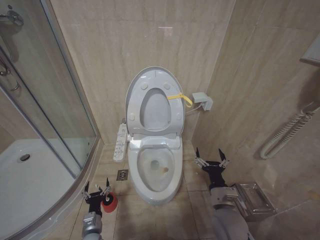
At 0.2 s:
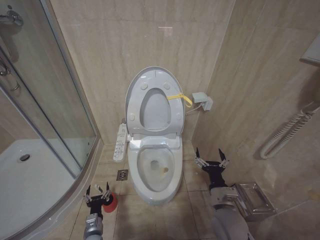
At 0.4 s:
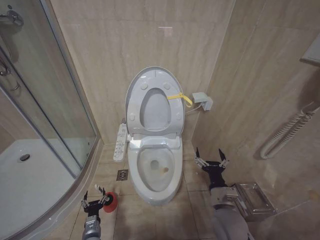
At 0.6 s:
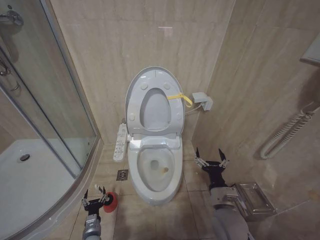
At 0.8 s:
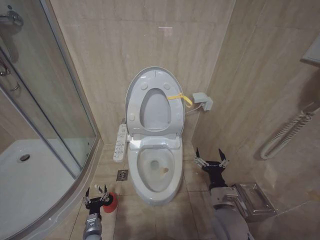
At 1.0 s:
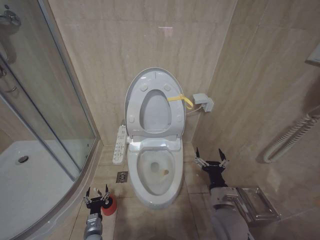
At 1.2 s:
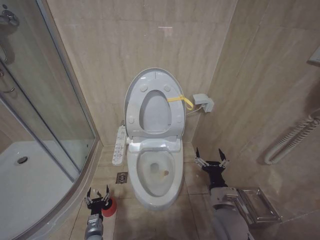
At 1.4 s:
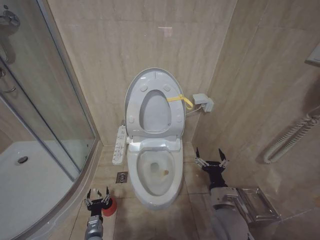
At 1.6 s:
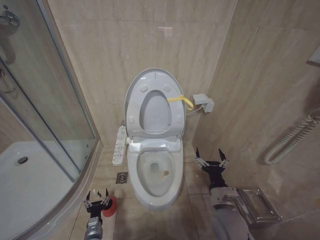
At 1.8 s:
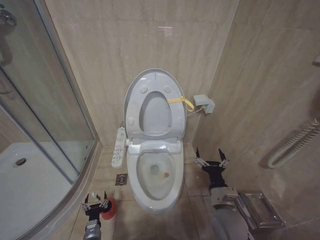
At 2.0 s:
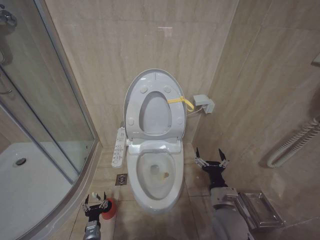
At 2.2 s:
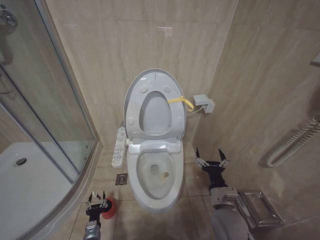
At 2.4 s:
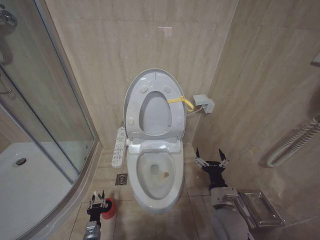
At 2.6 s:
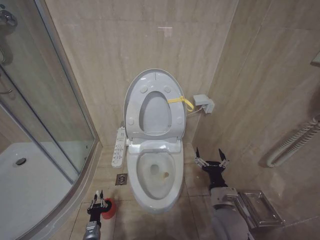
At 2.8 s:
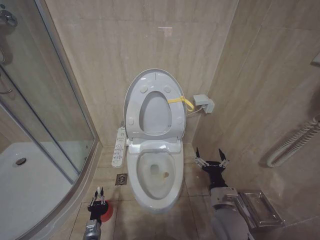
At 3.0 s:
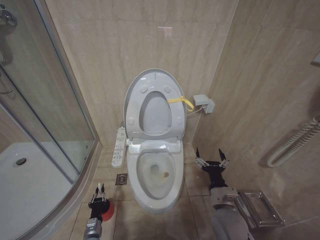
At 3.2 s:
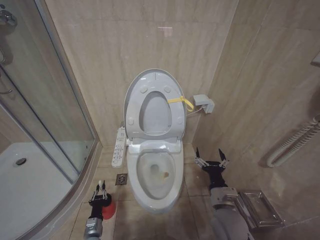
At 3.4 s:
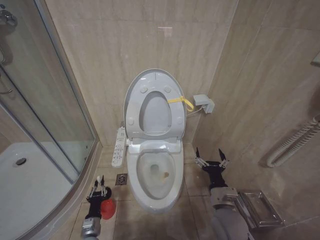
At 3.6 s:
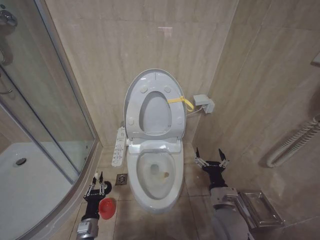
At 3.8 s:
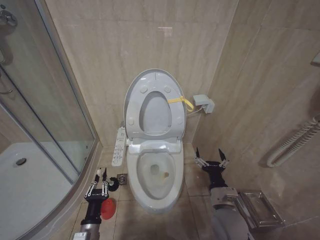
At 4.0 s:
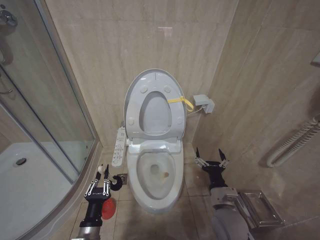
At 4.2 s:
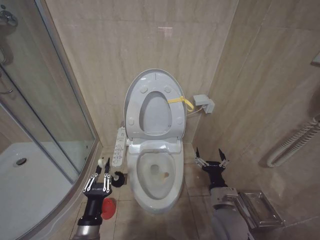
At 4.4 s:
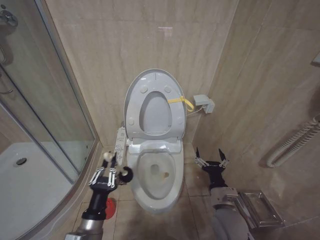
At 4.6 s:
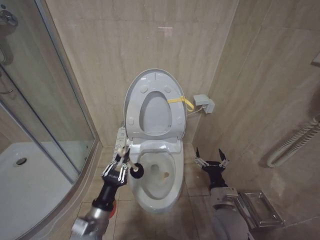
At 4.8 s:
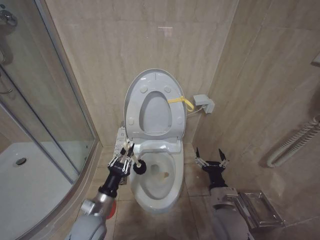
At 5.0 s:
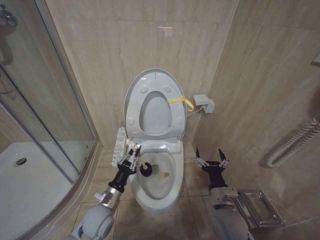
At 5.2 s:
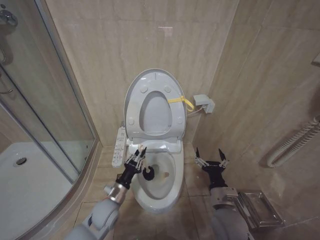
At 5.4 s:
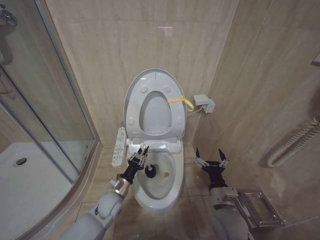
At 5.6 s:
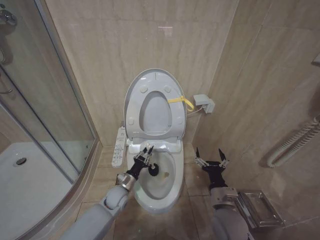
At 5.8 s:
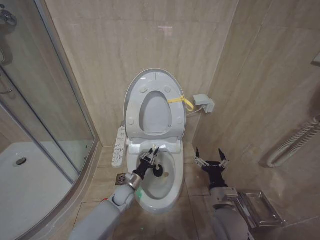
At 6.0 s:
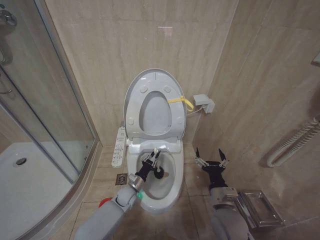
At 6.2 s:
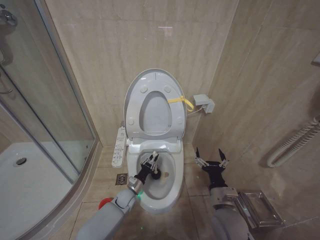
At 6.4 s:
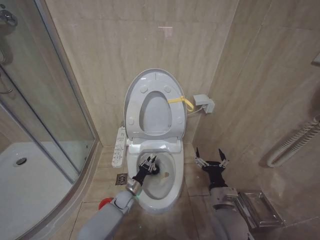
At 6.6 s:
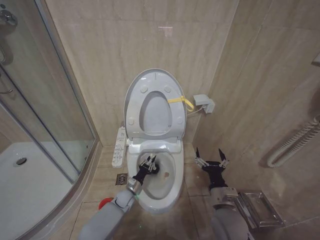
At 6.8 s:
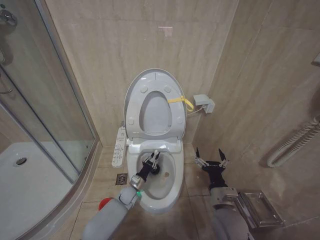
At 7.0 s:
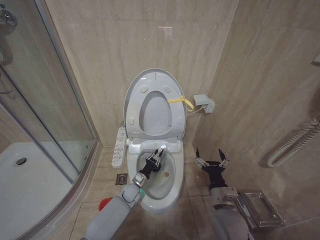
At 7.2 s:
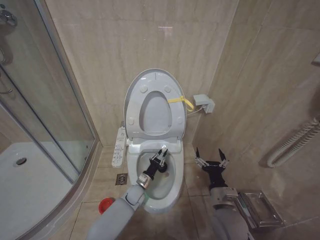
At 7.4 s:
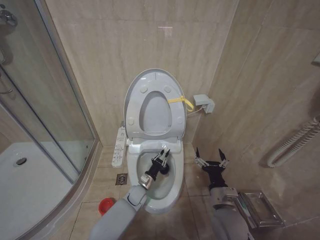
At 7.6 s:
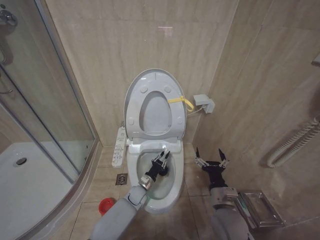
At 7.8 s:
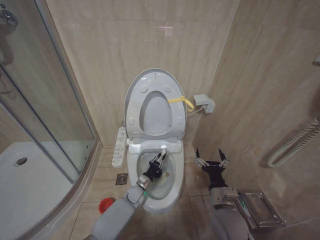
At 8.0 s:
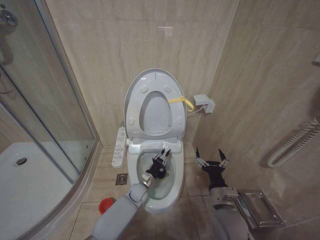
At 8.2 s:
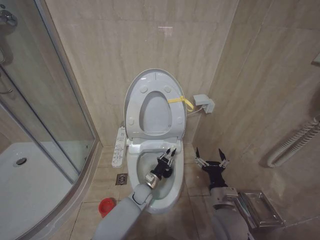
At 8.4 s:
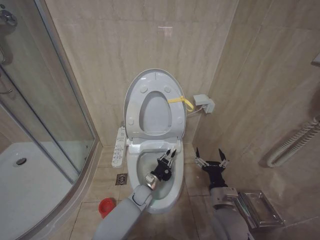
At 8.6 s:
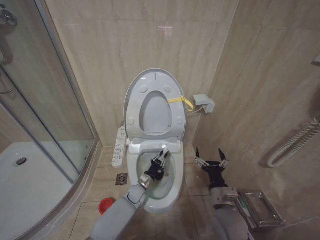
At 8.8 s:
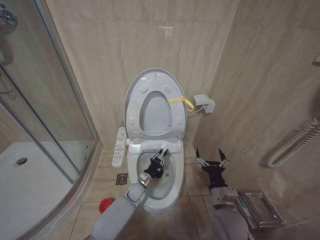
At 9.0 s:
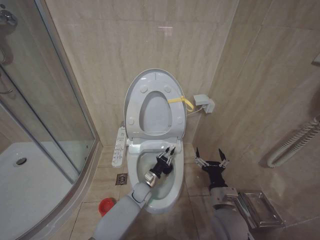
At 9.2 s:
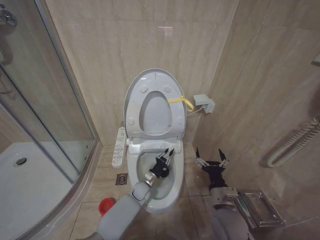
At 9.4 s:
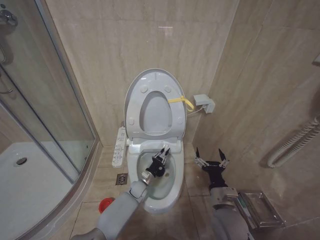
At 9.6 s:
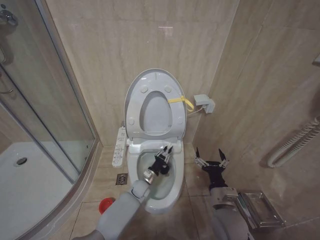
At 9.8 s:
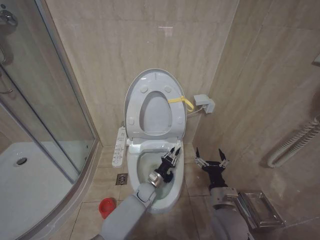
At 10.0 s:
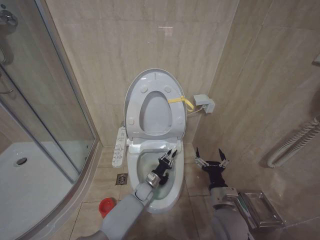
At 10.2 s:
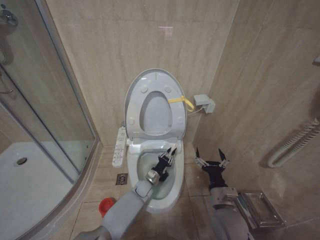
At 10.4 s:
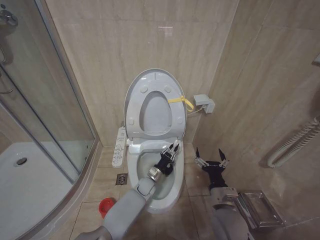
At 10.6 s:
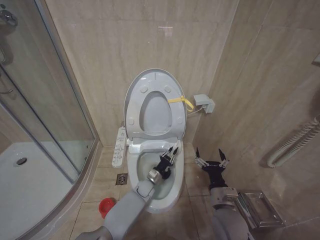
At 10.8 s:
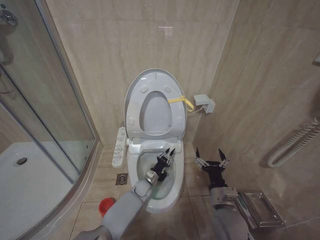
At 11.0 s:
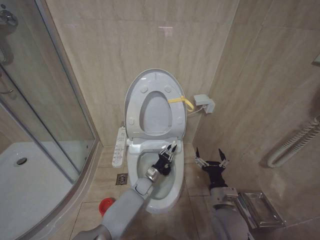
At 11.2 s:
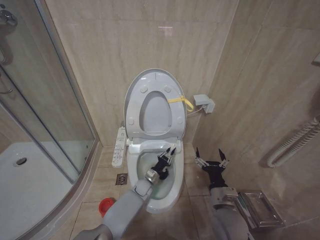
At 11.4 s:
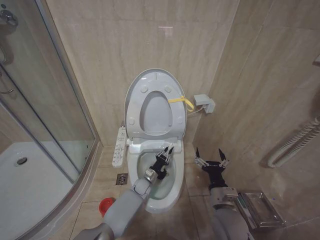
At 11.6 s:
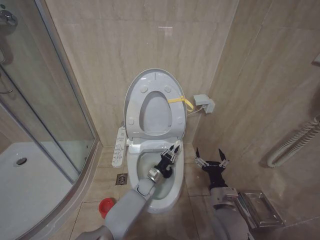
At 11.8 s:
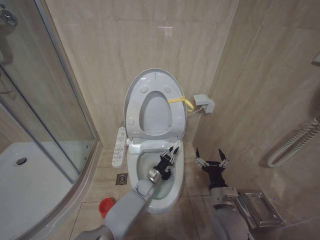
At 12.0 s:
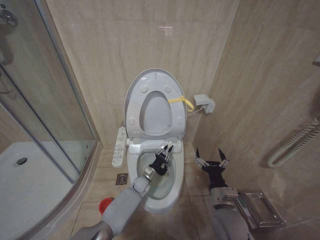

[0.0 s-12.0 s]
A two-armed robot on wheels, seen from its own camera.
Task of the whole recording: Open the toilet lid, clean the toilet bowl with a toilet brush, close the toilet lid, and flush.
0.0 to 1.6 s: The left gripper shifts some 10 cm downward.
1.6 to 3.0 s: The left gripper closes up.
3.0 to 4.4 s: The left gripper heads upward, covering roughly 25 cm.
4.4 to 6.0 s: The left gripper is displaced forward and downward by approximately 30 cm.
6.0 to 7.6 s: The left gripper heads to the right, covering about 5 cm.
7.6 to 12.0 s: The grippers make only small movements.

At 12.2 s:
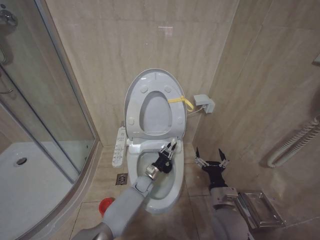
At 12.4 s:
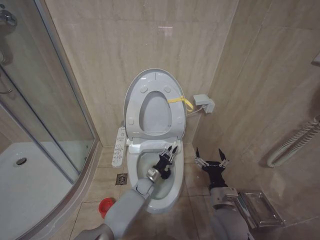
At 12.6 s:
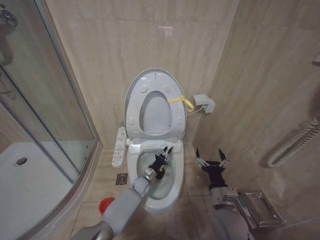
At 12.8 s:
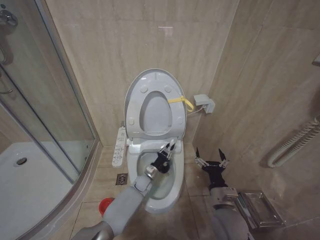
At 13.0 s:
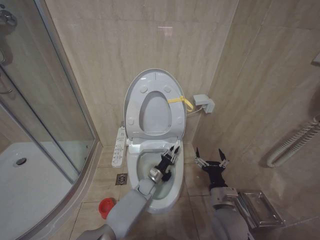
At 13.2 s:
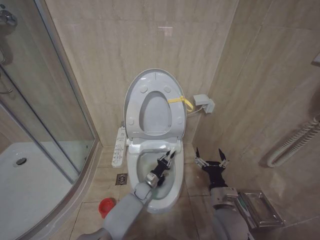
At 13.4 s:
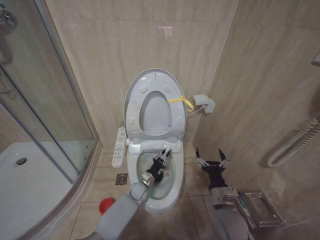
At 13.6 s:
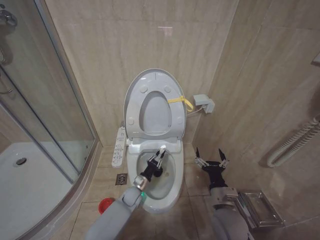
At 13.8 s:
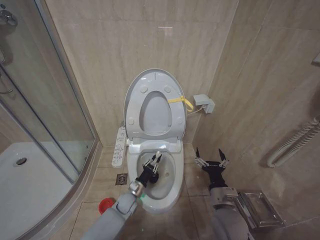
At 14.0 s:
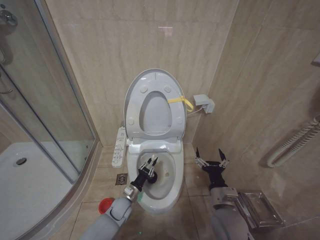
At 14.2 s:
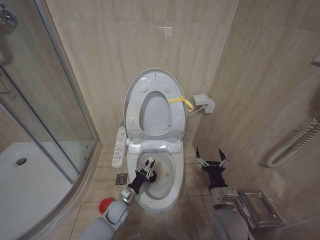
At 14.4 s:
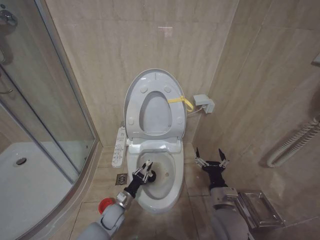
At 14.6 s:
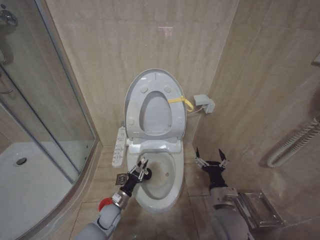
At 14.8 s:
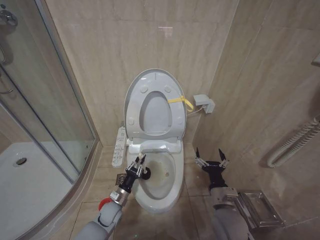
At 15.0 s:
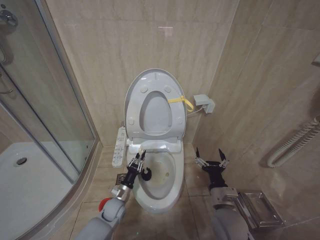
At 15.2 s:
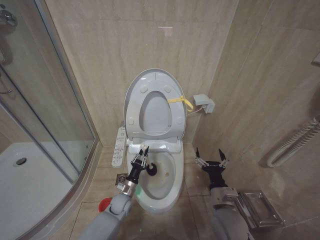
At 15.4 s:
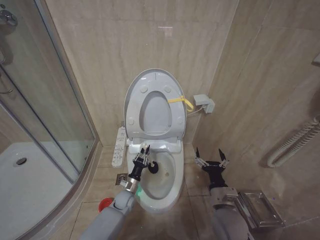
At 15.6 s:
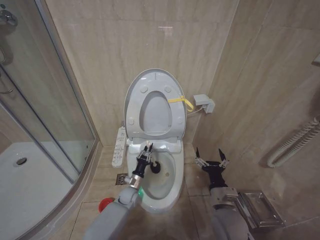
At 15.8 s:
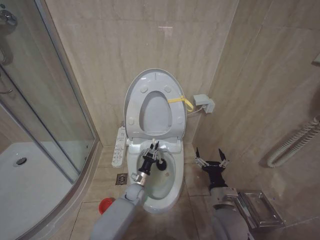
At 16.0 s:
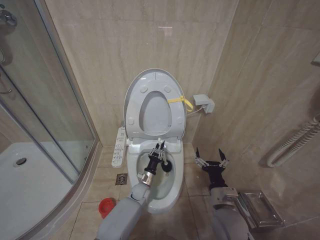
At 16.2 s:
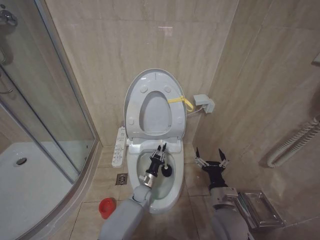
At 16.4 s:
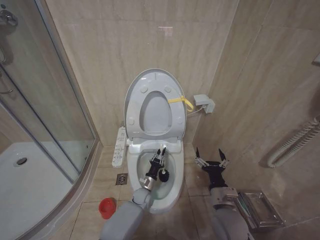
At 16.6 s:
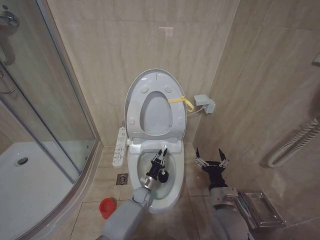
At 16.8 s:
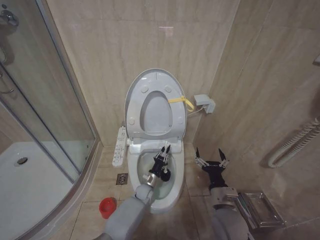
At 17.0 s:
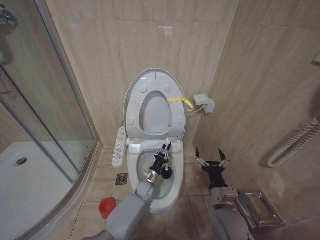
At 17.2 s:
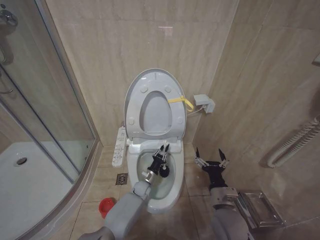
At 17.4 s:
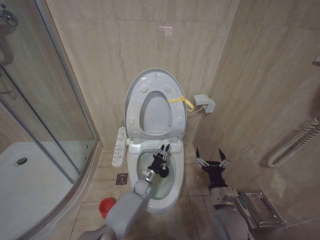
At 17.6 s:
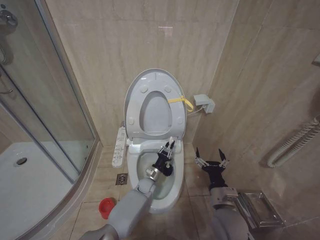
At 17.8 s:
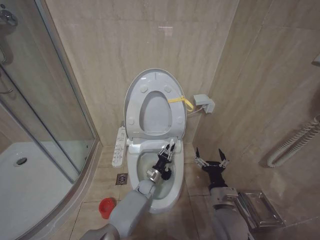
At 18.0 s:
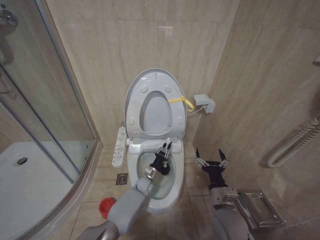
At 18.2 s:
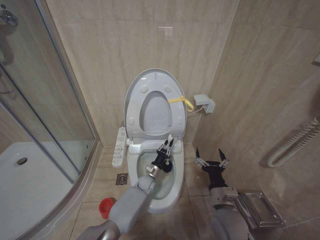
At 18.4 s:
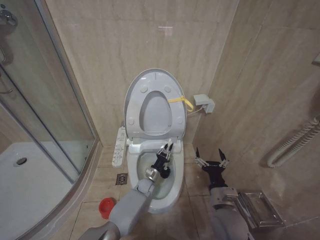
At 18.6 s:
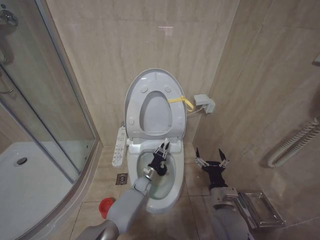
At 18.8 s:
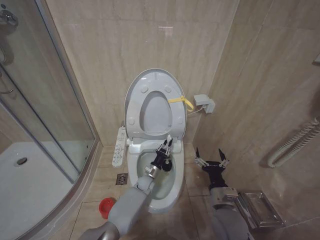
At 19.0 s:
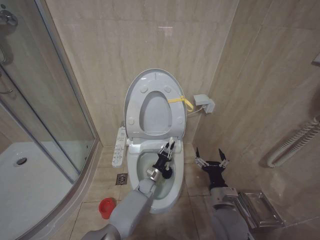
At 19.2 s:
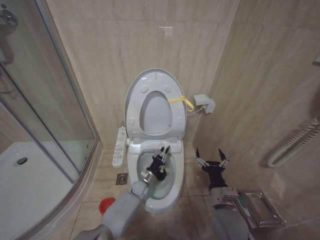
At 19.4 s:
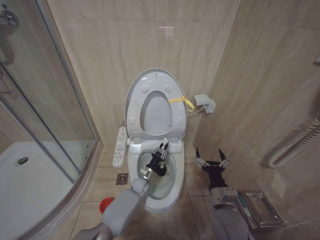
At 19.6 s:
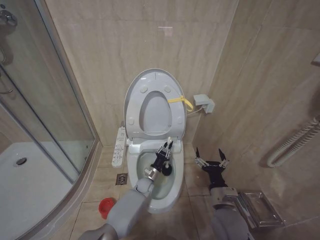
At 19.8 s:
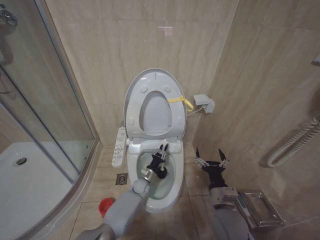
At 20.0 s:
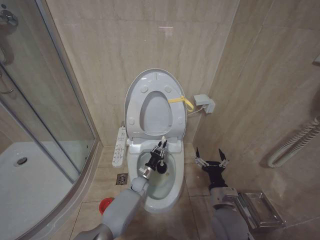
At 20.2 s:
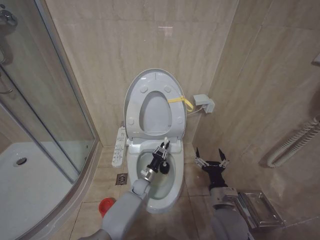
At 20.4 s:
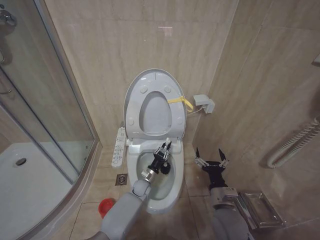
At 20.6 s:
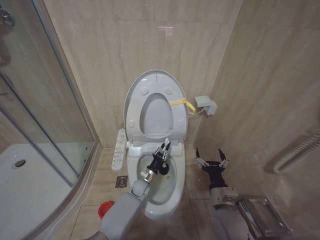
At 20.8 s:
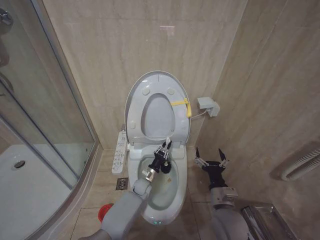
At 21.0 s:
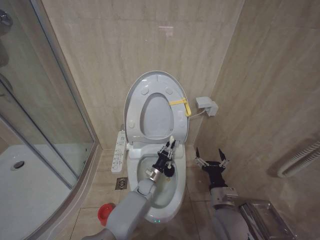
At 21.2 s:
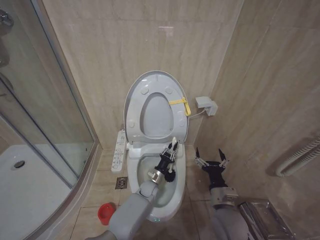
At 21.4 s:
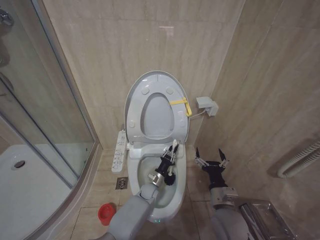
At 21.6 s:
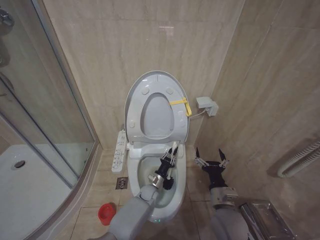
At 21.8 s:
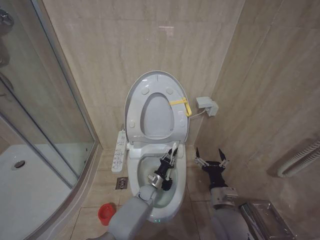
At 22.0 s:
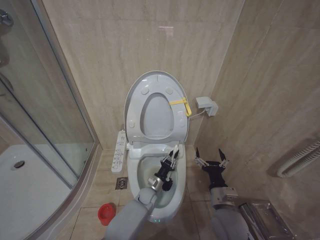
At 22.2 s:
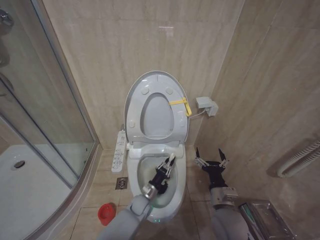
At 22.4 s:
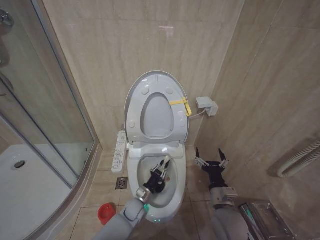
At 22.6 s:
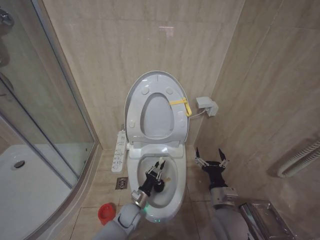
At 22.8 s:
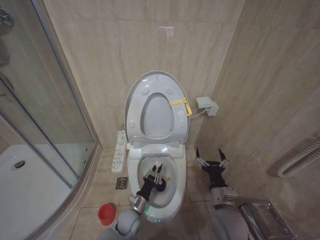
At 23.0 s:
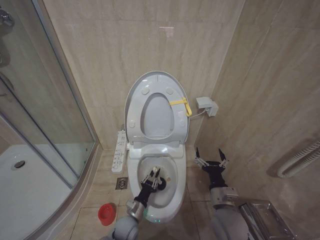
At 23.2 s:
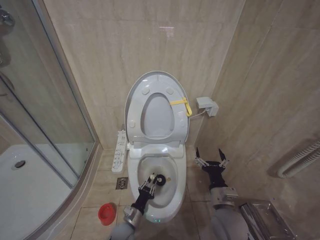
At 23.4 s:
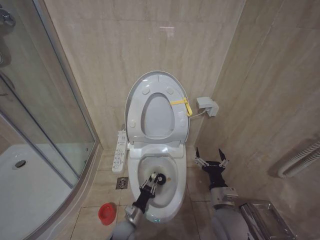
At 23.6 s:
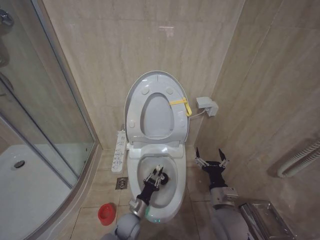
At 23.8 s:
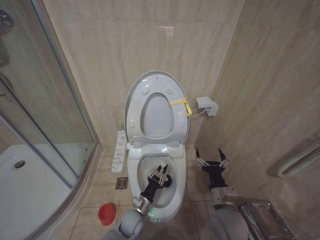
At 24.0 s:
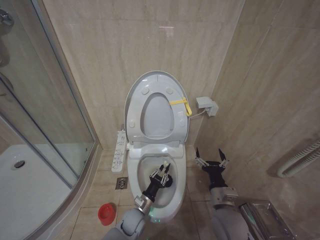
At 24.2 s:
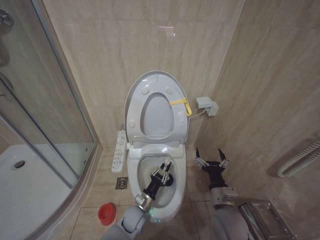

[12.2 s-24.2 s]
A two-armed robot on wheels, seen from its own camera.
Task of the whole recording: Open the toilet lid, clean the toilet bowl with a toilet brush, close the toilet lid, and flush.
12.2 to 13.8 s: The left gripper goes approximately 10 cm backward and to the left.
15.2 to 16.6 s: The left gripper goes about 10 cm to the right.
16.6 to 18.2 s: The left gripper shifts by some 5 cm.
18.2 to 21.2 s: There are only small adjustments of the grippers.
21.2 to 22.6 s: The left gripper moves backward and to the left, about 10 cm.
